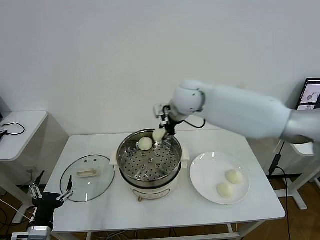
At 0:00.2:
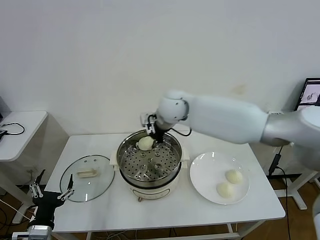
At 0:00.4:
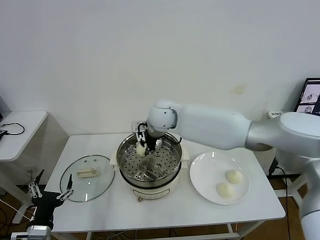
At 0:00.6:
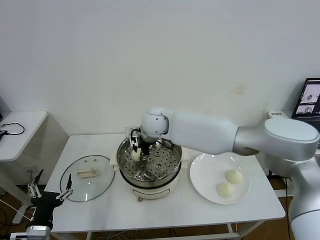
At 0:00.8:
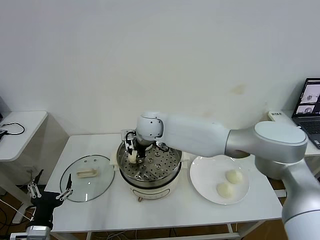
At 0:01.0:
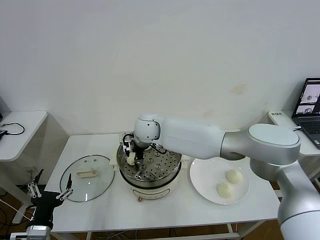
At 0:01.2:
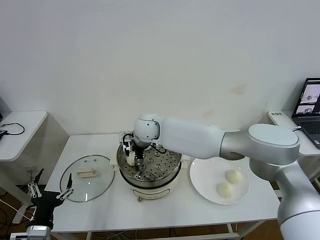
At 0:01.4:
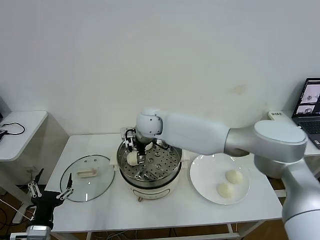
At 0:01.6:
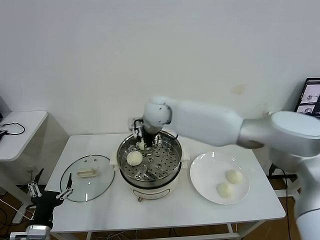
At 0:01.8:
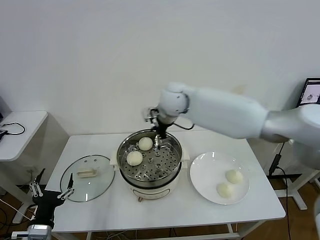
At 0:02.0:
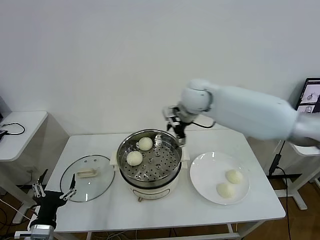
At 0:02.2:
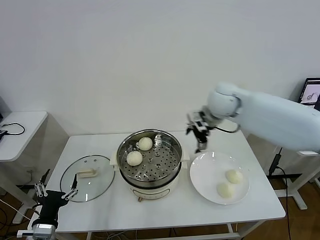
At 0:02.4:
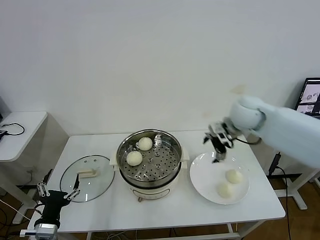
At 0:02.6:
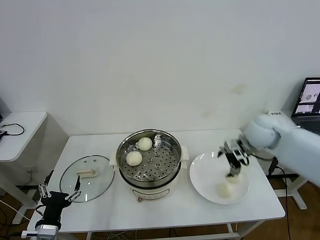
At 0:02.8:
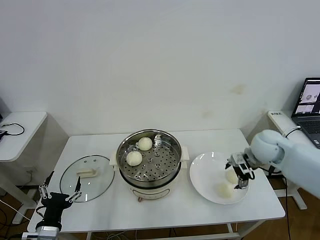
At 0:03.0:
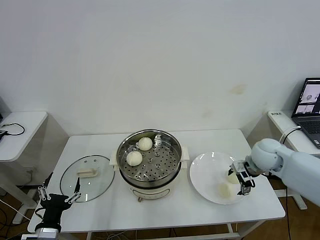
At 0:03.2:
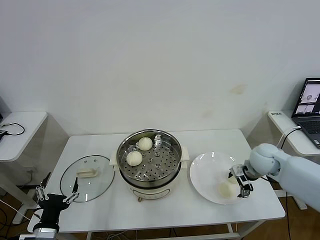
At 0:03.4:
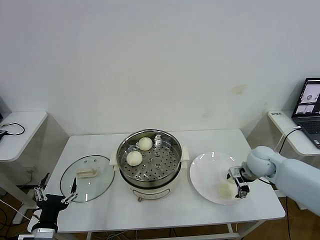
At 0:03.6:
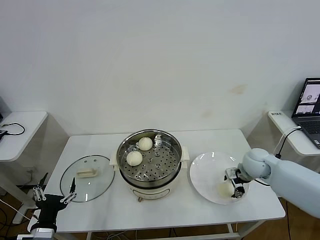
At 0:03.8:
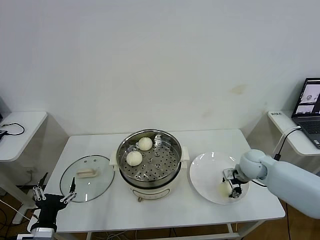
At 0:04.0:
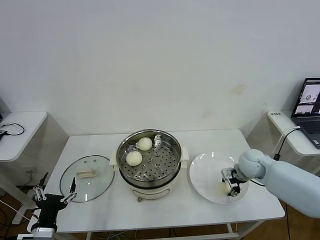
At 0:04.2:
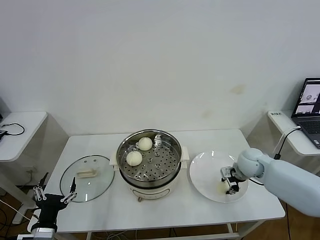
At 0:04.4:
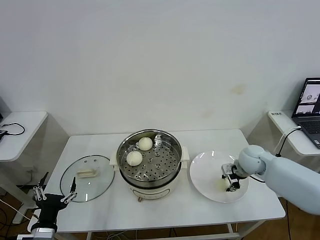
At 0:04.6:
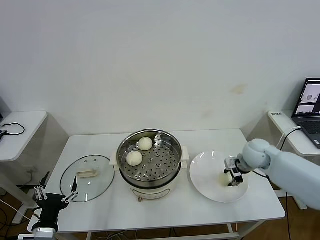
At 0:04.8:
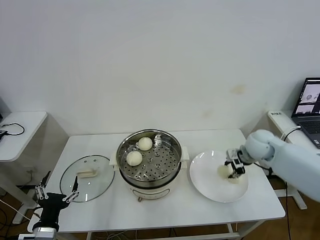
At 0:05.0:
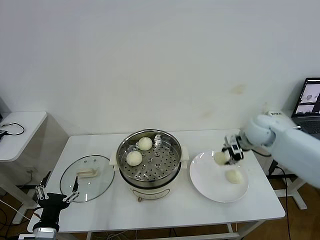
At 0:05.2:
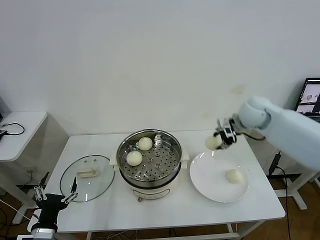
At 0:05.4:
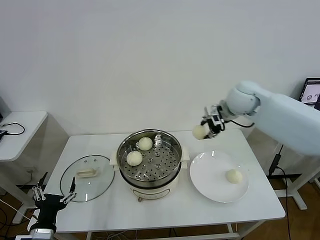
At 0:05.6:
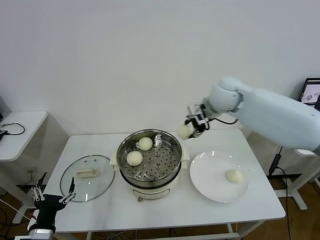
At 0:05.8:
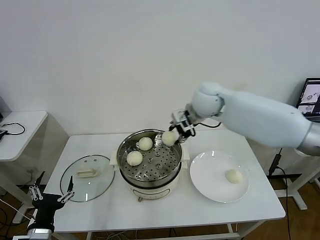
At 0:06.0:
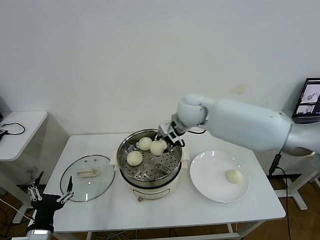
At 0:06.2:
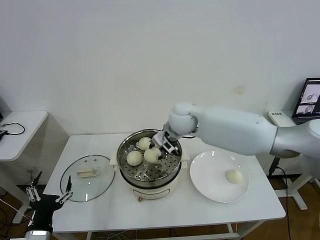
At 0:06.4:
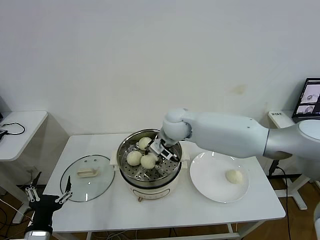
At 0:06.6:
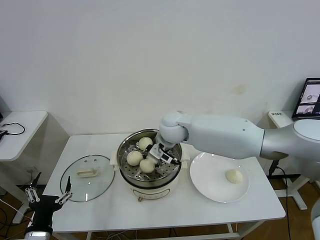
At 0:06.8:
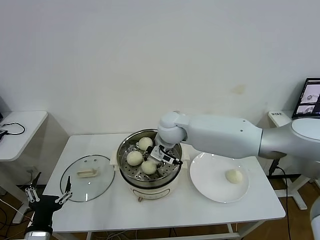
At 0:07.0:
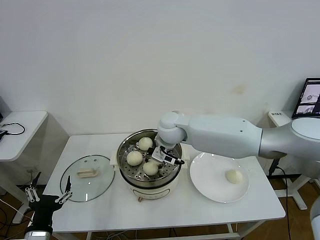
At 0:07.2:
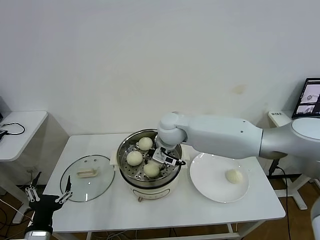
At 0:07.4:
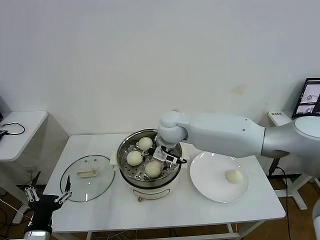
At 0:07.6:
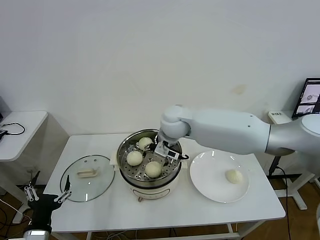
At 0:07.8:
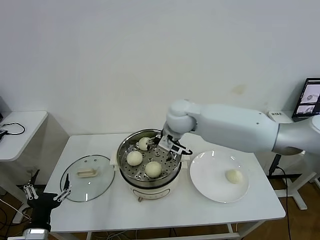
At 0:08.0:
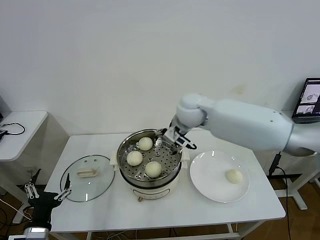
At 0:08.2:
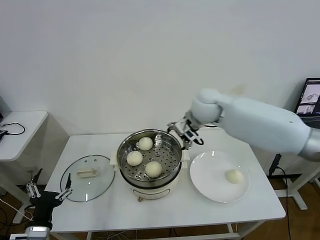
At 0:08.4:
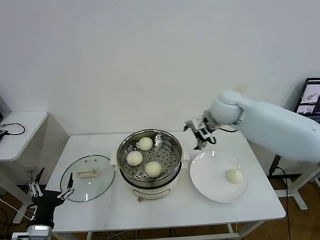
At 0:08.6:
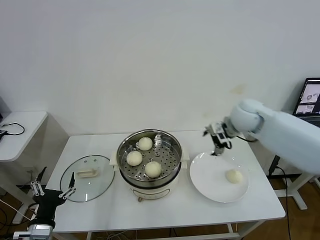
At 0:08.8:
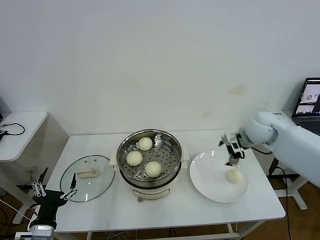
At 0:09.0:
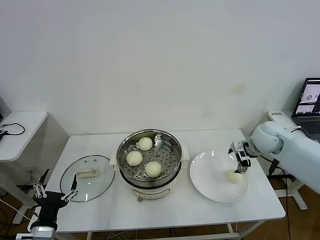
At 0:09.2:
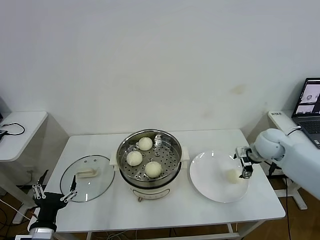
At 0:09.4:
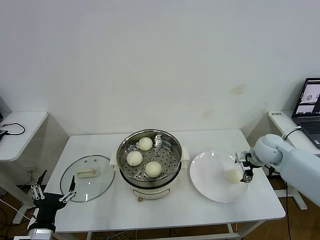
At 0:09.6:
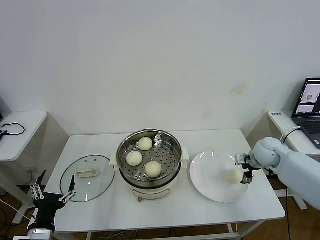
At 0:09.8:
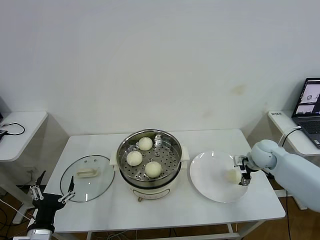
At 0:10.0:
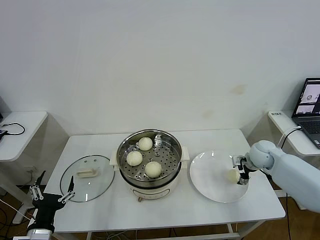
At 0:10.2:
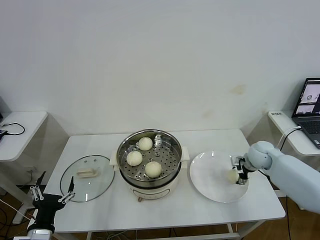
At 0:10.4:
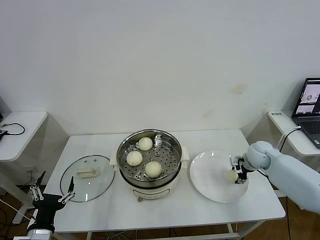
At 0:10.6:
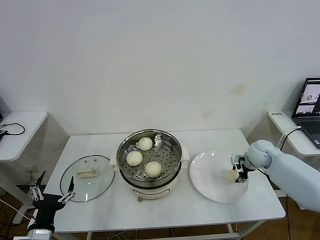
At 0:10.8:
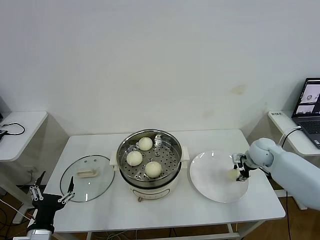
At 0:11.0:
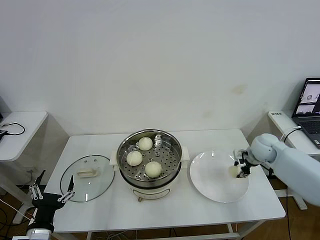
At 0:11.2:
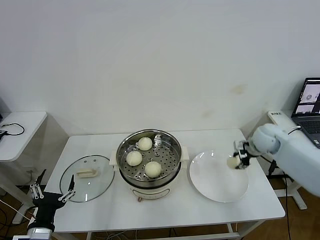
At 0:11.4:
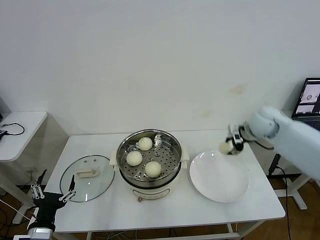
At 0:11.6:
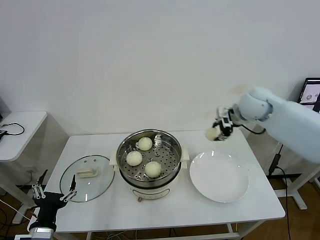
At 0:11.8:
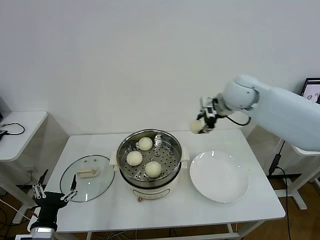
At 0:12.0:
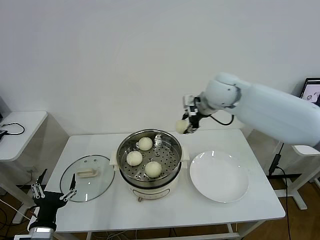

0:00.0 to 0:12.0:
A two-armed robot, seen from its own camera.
Task of the whole recording: take steamed baozi put them in steamer then cover it.
Step, 0:01.6 to 0:04.0: Grasp the baozi in the plate with right gripper.
Step, 0:04.2 to 0:07.4: Place the baozi on the steamer with right gripper.
Step, 0:07.6 to 0:10.4: Grasp the baozi in the plate with right gripper.
0:00.0 to 0:01.6: The right gripper heads to the left and downward, covering approximately 10 cm, and opens up.
0:01.6 to 0:03.0: The right gripper is displaced to the right by roughly 35 cm.
0:03.0 to 0:04.4: The right gripper travels downward by about 5 cm, and closes up.
0:04.4 to 0:06.0: The right gripper goes roughly 30 cm to the left and upward.
0:06.0 to 0:07.6: The right gripper is displaced to the left by some 5 cm, and opens.
0:07.6 to 0:09.0: The right gripper moves to the right, about 30 cm.
0:09.0 to 0:10.4: The right gripper heads downward, covering about 10 cm, and closes up.
0:10.4 to 0:12.0: The right gripper is displaced upward and to the left by approximately 30 cm.

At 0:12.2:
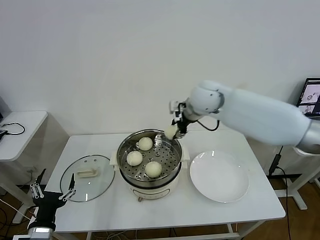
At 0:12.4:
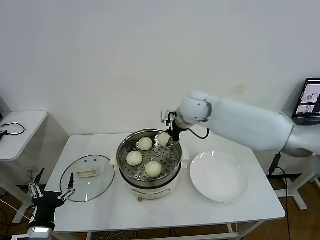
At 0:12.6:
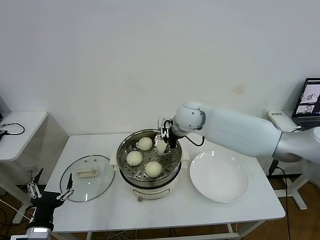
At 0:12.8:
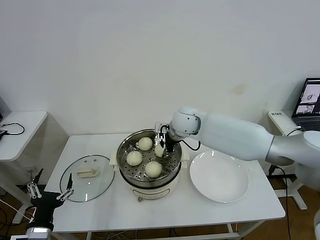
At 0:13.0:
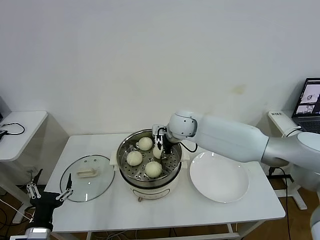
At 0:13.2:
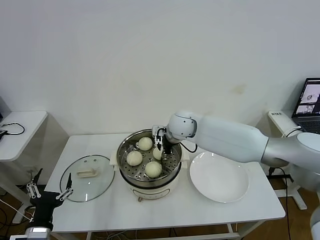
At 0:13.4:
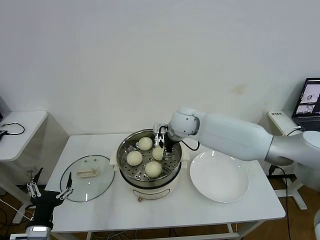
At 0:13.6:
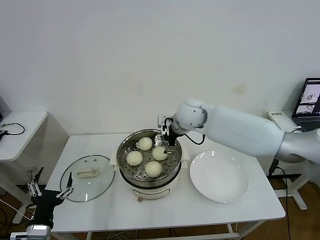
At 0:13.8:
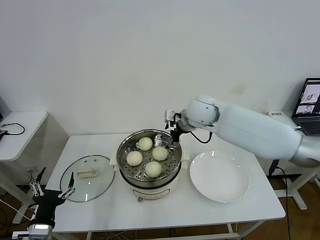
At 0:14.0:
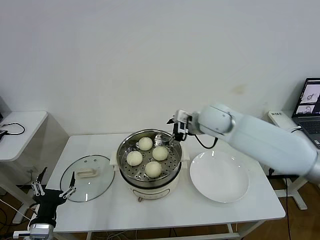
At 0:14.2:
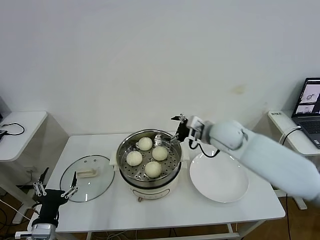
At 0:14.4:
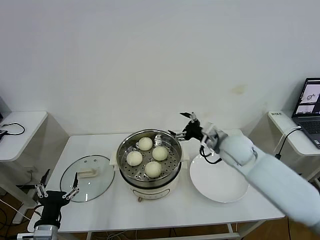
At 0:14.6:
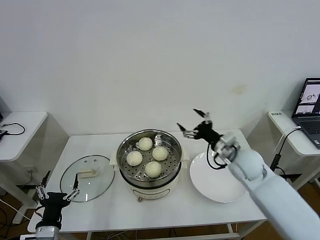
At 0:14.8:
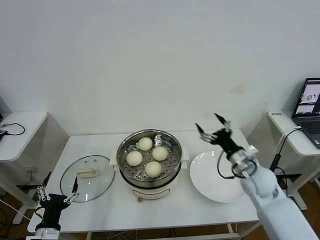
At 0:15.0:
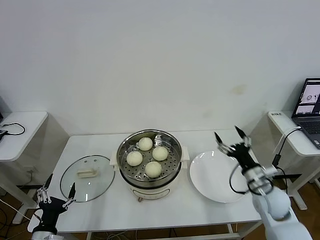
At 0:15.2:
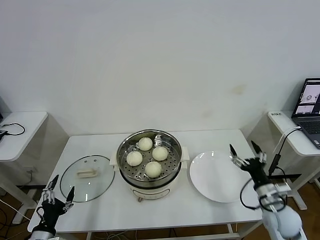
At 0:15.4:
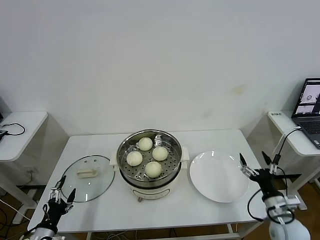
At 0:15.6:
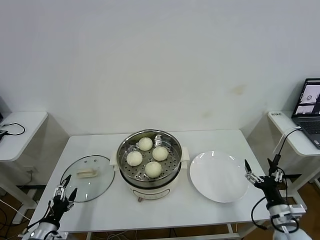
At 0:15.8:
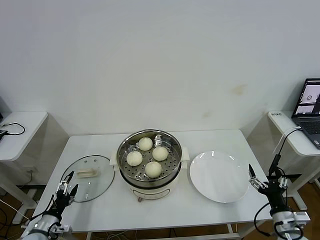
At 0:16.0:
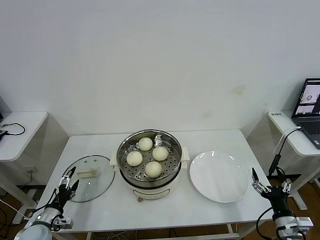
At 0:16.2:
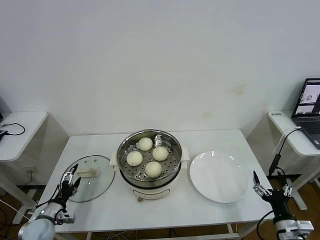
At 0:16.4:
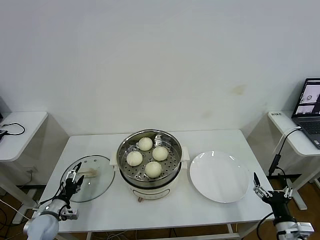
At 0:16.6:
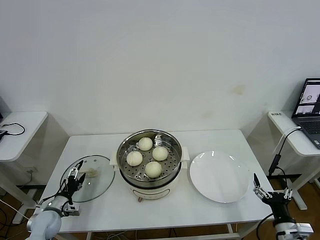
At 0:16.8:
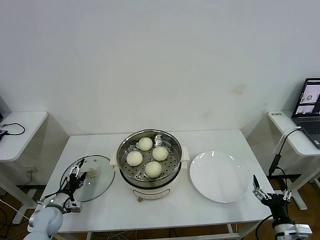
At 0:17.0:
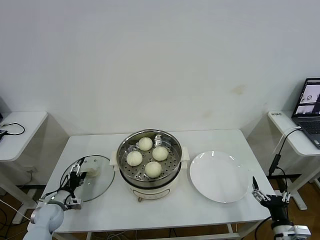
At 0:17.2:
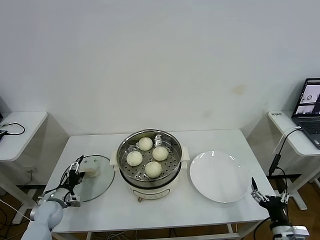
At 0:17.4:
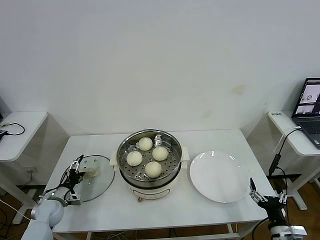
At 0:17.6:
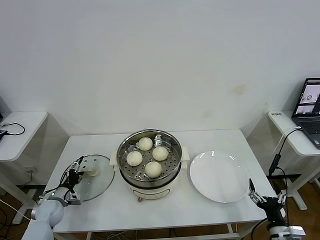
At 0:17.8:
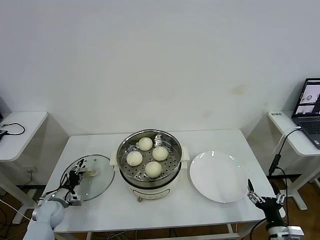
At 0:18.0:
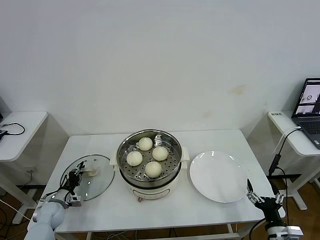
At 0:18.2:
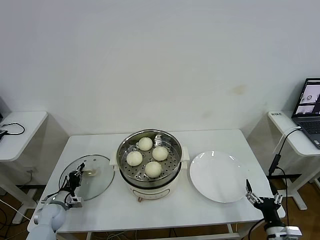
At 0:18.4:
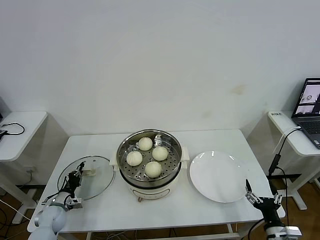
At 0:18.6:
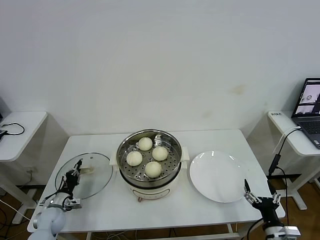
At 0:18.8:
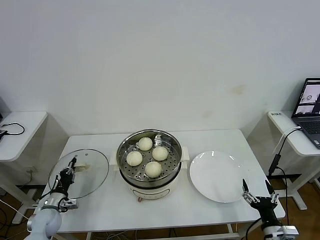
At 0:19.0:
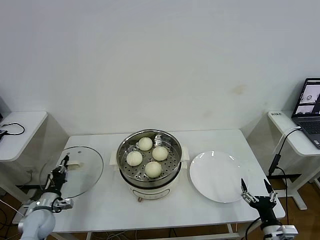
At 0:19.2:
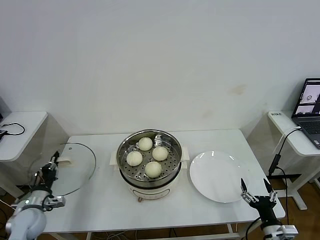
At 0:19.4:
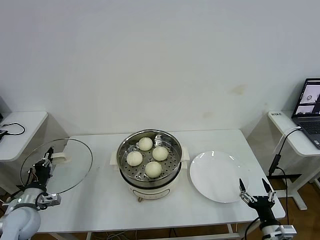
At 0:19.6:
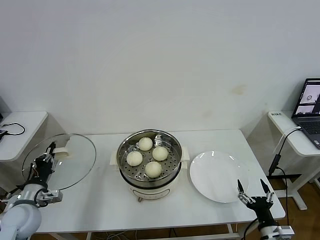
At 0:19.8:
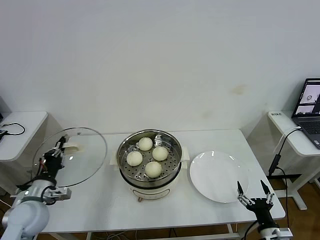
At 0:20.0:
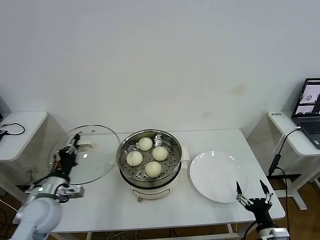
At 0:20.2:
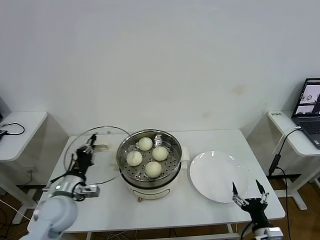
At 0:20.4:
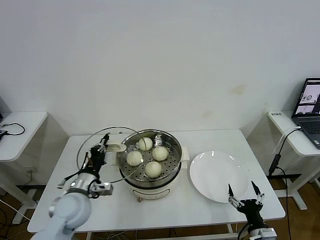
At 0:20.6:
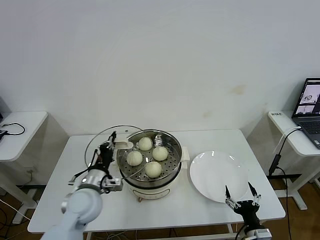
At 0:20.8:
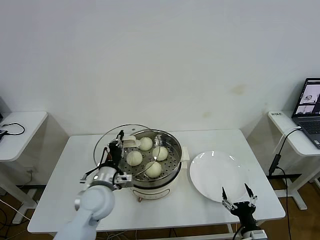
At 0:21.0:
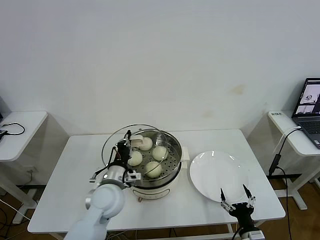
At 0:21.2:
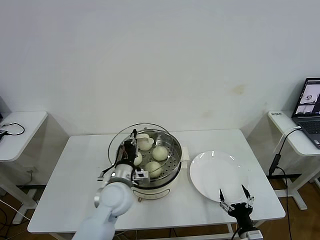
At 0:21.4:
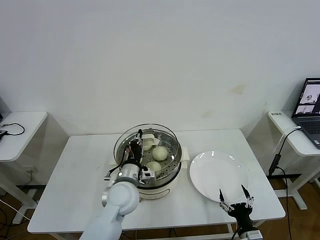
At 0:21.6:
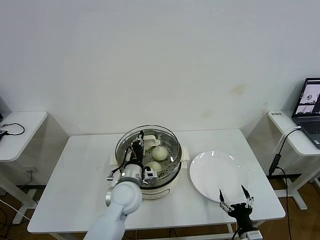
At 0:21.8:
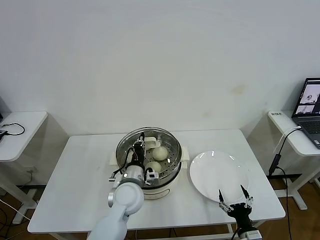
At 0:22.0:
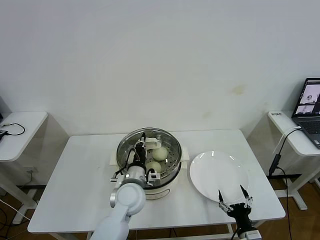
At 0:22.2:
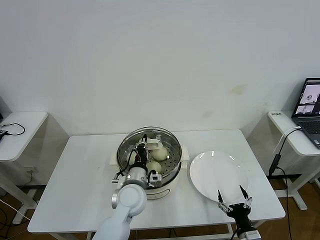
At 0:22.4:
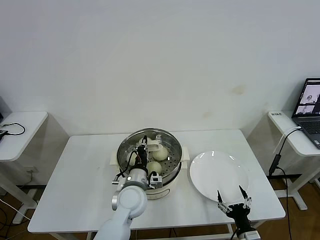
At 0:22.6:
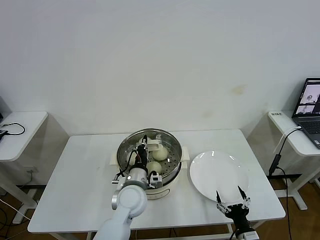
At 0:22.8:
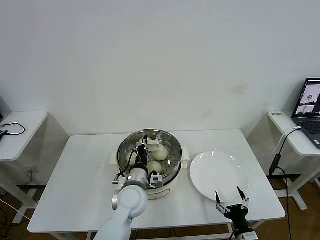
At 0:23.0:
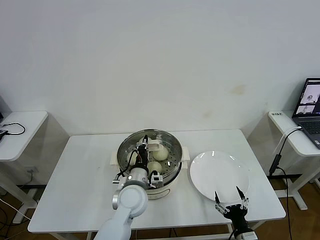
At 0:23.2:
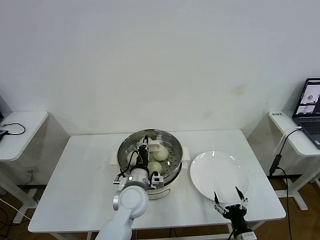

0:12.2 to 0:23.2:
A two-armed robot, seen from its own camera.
Task of the whole recording: take steamed baozi put them in steamer then cover it.
Step, 0:13.6 to 0:18.2: Grasp the pot lid with left gripper.
0:12.2 to 0:13.8: The right gripper opens its fingers.
0:13.8 to 0:15.4: The left gripper moves downward and to the left, roughly 10 cm. The right gripper heads backward, to the right and downward, covering approximately 40 cm.
0:15.4 to 0:17.0: The left gripper shifts roughly 15 cm forward. Meanwhile the right gripper shifts some 10 cm backward.
0:17.0 to 0:18.4: The left gripper closes its fingers.
0:18.4 to 0:20.0: The left gripper travels upward and to the right by approximately 20 cm.
0:20.0 to 0:21.6: The right gripper changes place by approximately 5 cm. The left gripper is displaced to the right by about 25 cm.
0:21.6 to 0:23.2: There are only small adjustments of the grippers.
